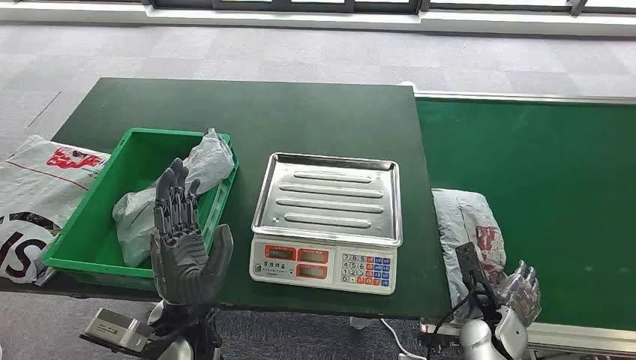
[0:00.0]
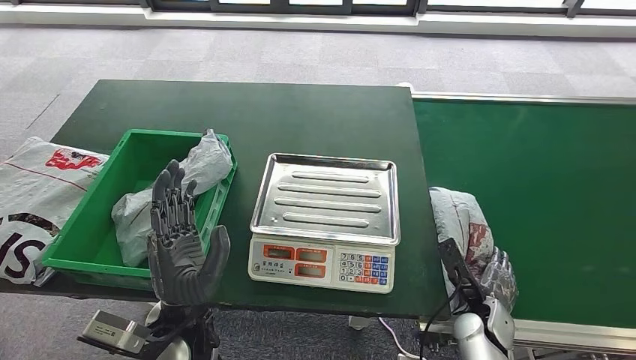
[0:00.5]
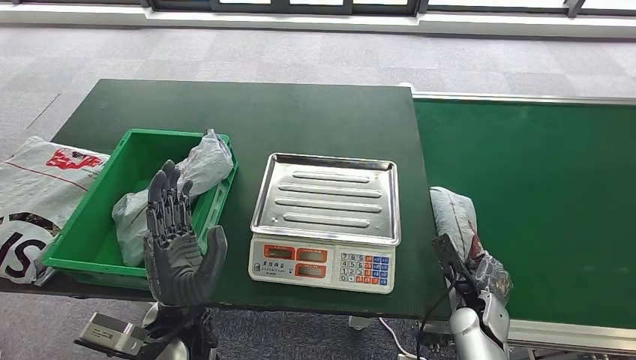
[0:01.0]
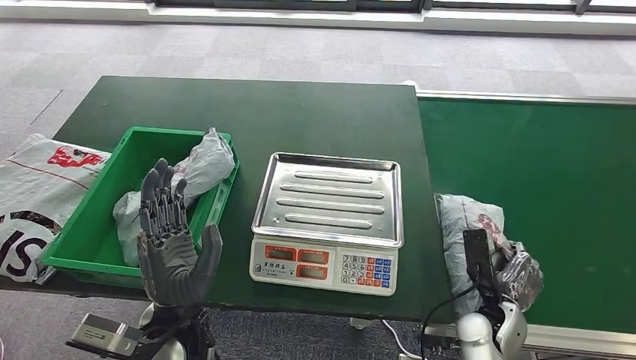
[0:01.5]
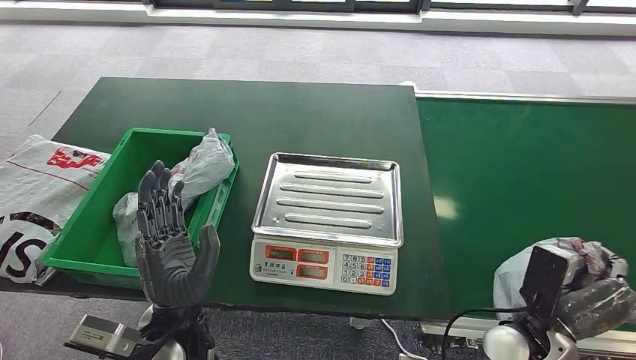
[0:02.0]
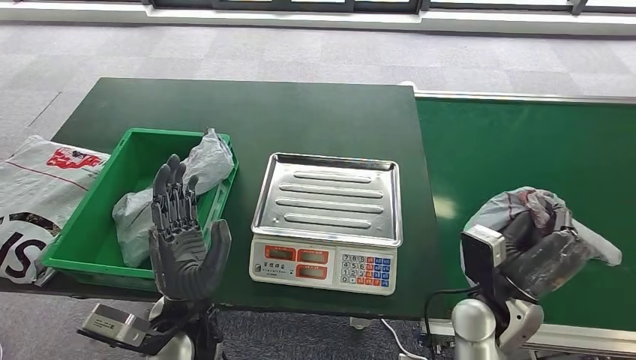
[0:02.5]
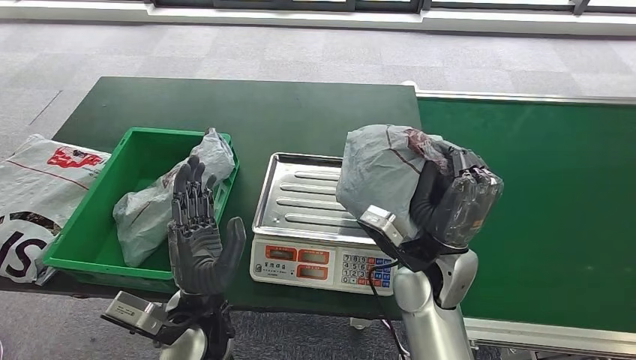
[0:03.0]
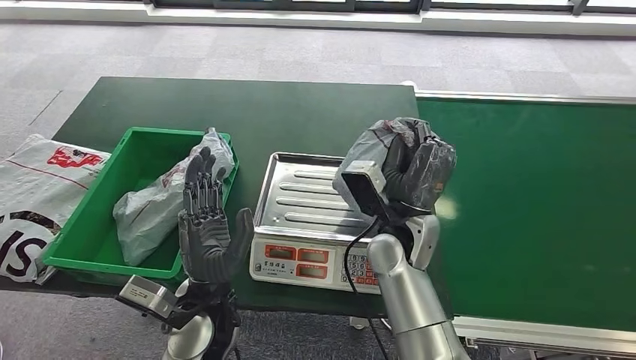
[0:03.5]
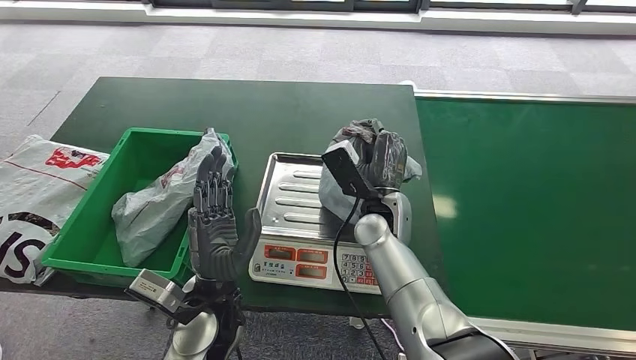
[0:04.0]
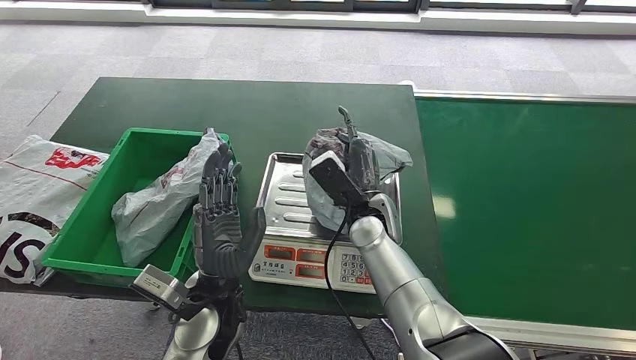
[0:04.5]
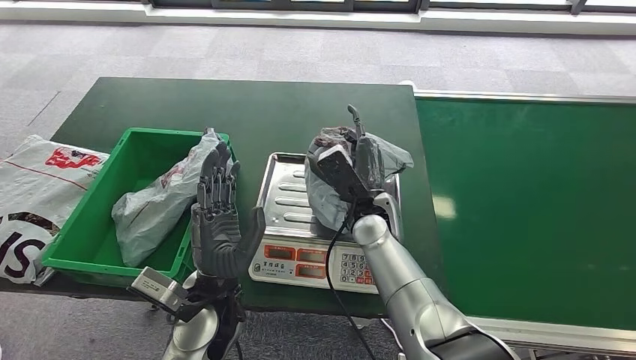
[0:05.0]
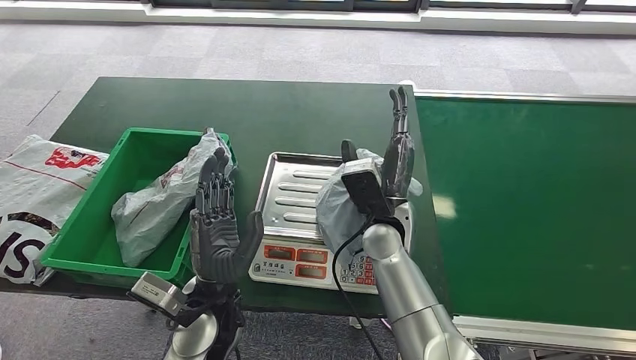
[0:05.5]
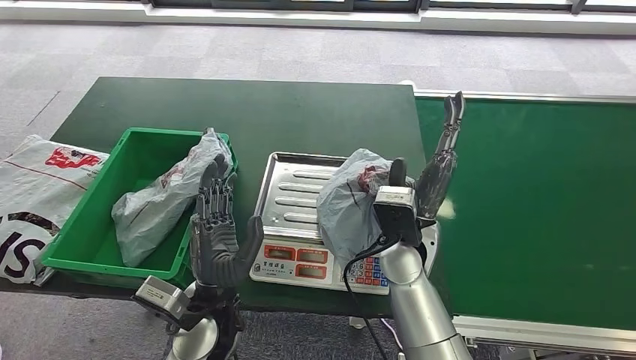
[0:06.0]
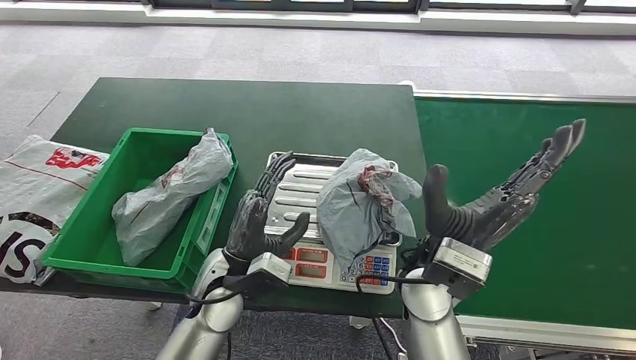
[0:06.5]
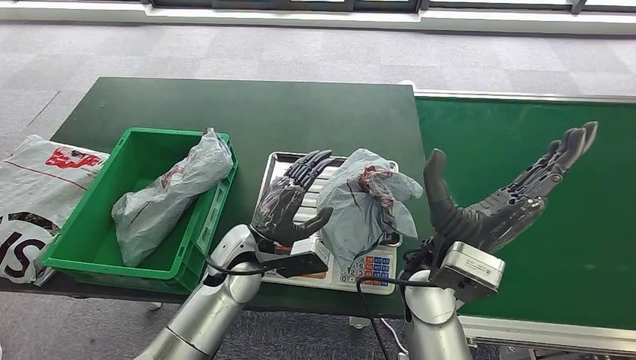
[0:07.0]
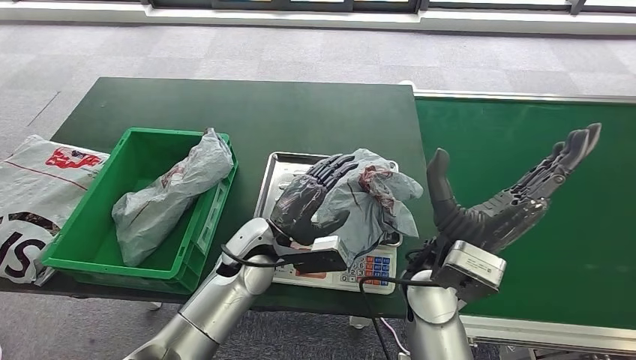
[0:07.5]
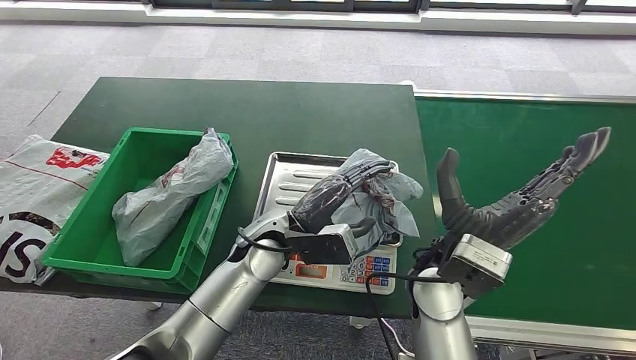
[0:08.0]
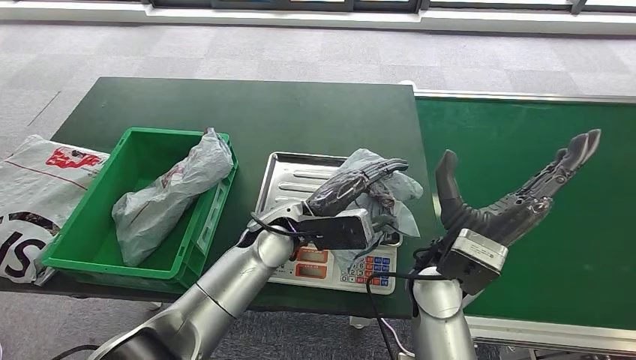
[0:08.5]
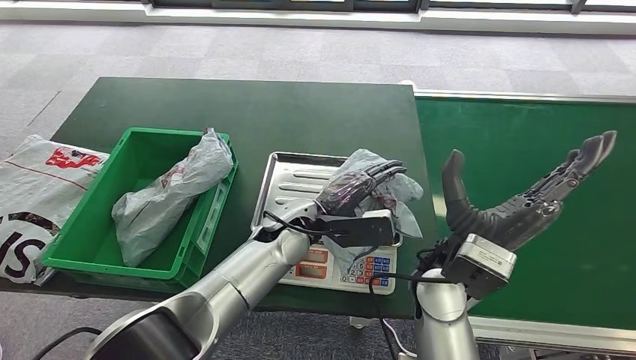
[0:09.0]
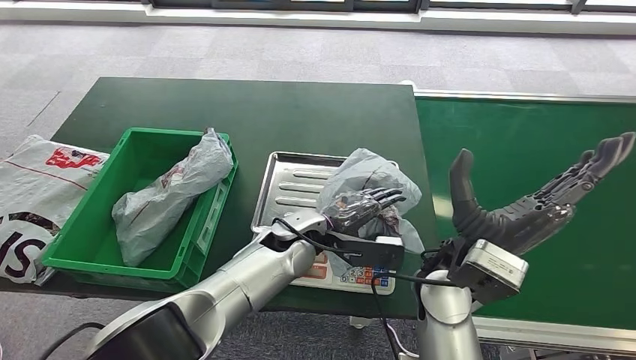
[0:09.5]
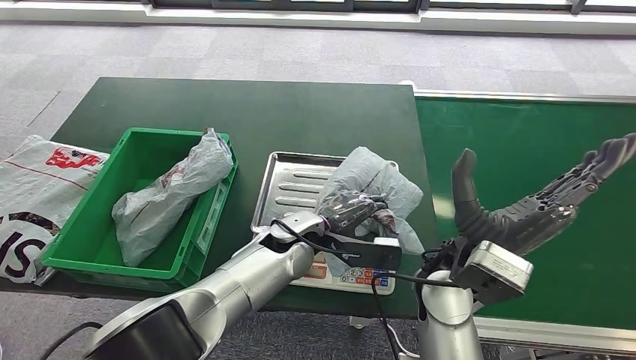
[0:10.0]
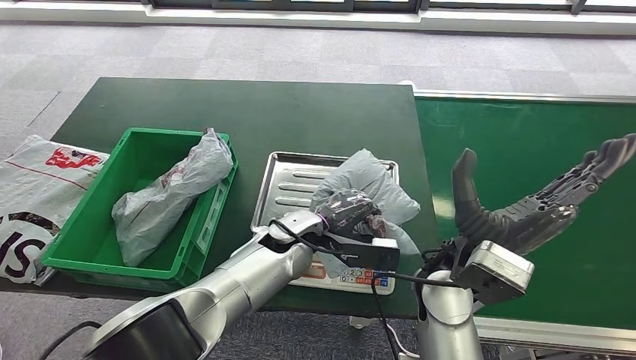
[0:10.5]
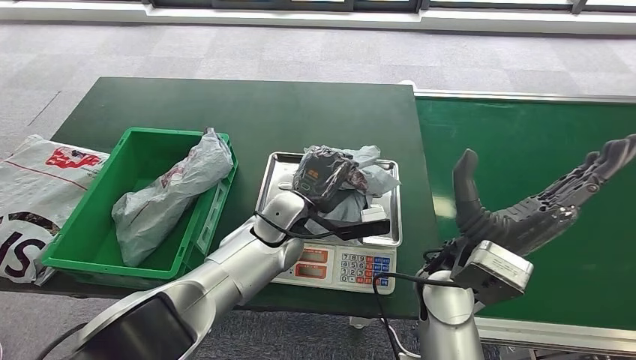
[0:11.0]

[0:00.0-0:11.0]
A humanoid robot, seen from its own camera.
Step, 0:00.0 to 0:02.0: Pick up the package from the conveyor belt.
Step, 0:02.5 to 0:05.5: Place the package onto the inbound machine.
0:02.0 to 0:03.5: The right hand heads to the left, forward and upward, covering some 25 cm.
0:05.5 to 0:07.5: The left hand is displaced forward by some 10 cm; the right hand travels backward and upward by roughly 10 cm.
0:07.5 to 0:09.0: The left hand heads to the right, covering approximately 5 cm.

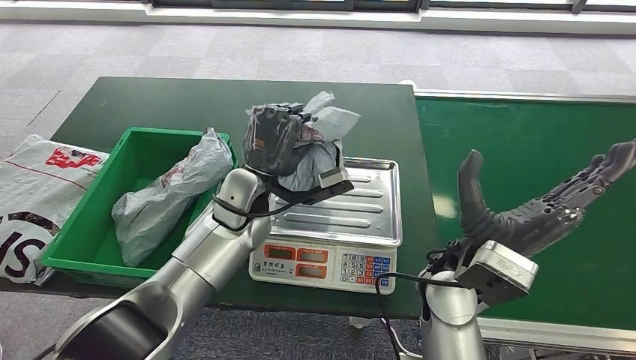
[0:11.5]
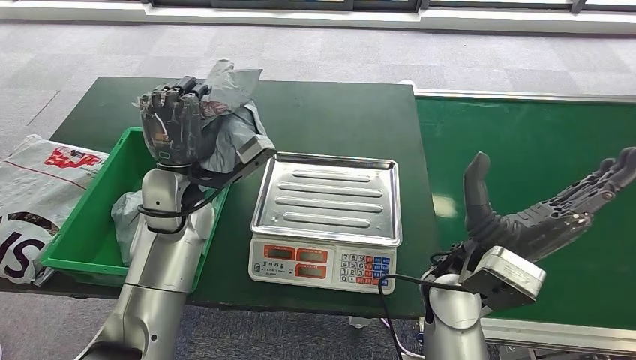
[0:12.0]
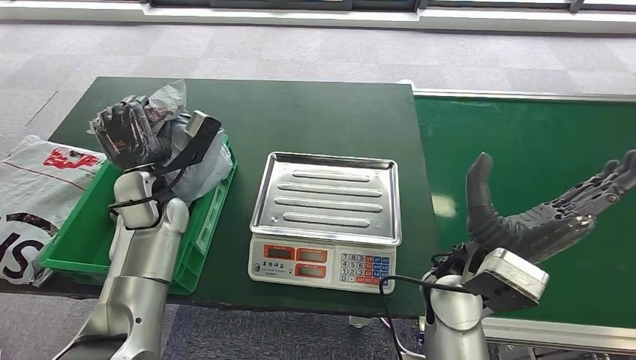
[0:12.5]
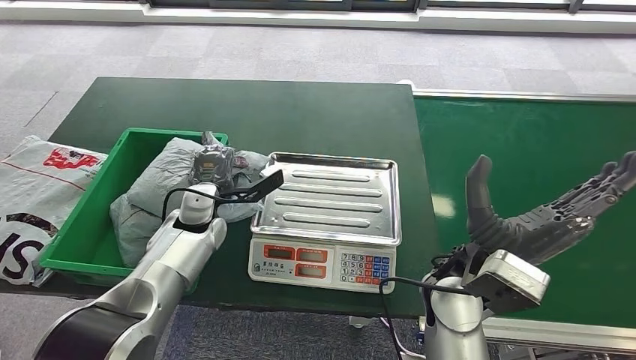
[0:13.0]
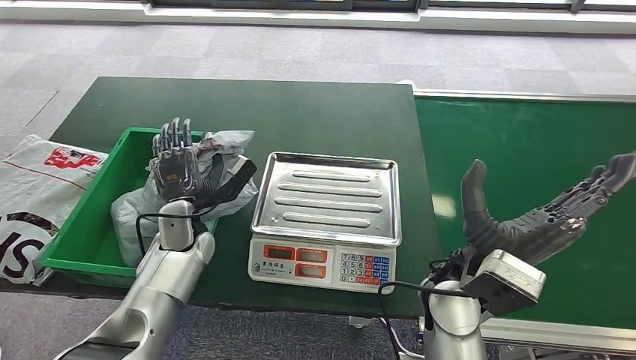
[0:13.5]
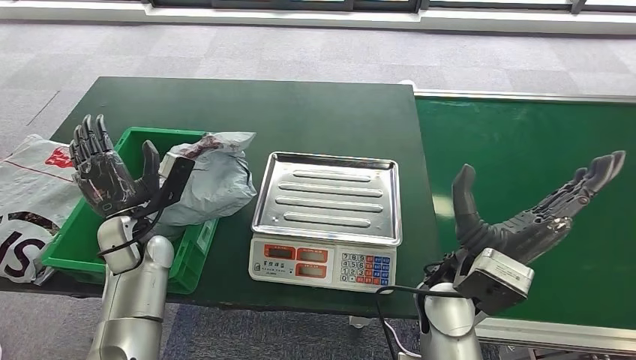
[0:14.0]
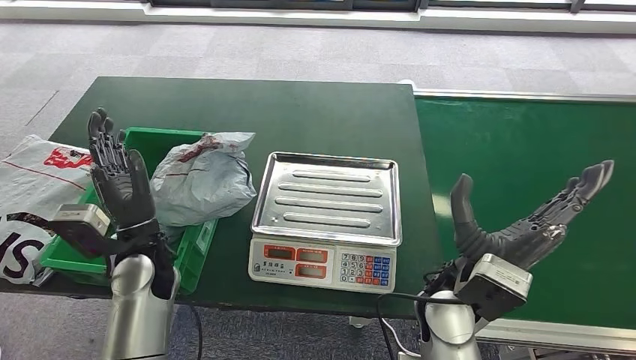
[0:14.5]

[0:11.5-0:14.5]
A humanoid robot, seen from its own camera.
Step, 0:12.0 to 0:14.5: Place the package into the parcel locker.
0:13.0 to 0:14.5: The left hand travels backward by about 10 cm.
